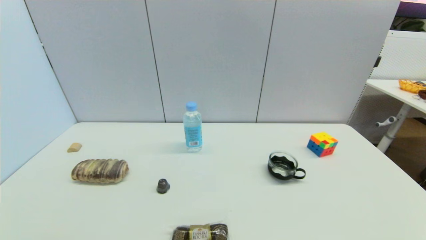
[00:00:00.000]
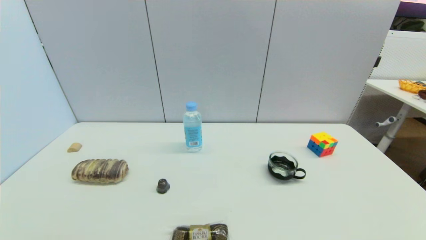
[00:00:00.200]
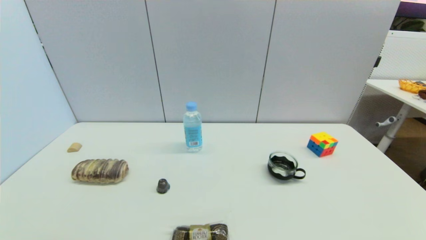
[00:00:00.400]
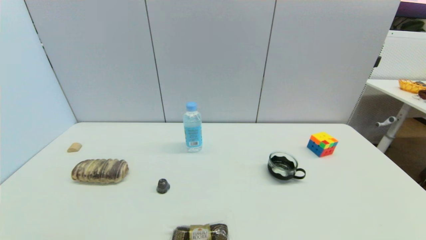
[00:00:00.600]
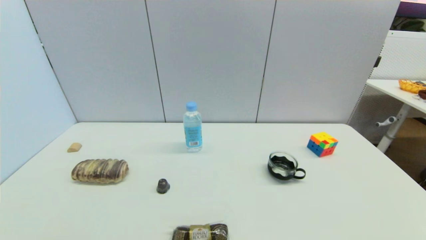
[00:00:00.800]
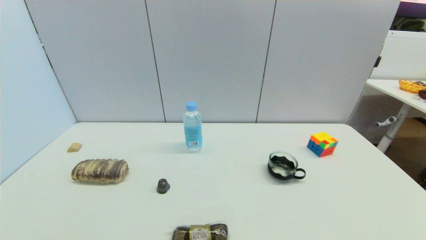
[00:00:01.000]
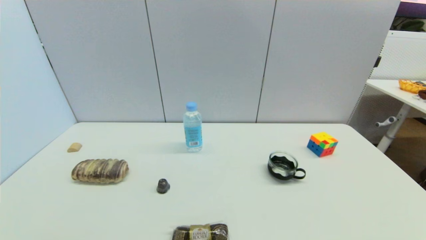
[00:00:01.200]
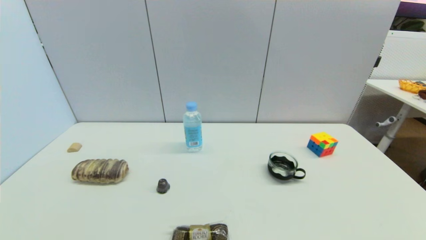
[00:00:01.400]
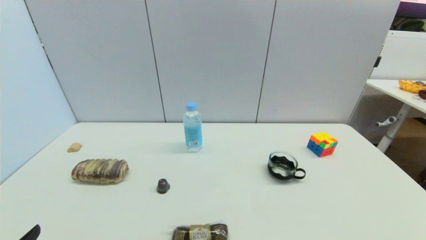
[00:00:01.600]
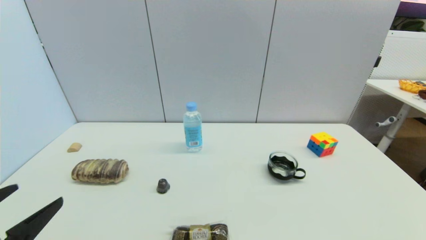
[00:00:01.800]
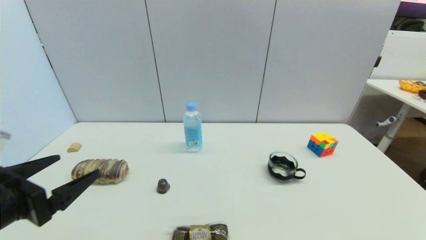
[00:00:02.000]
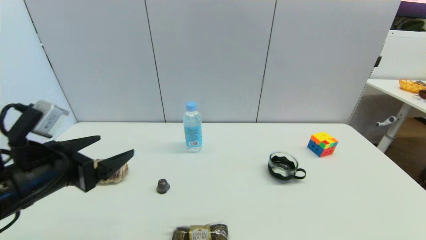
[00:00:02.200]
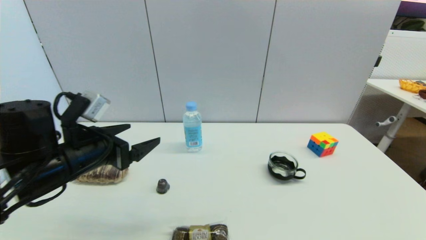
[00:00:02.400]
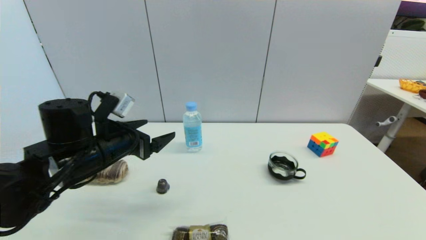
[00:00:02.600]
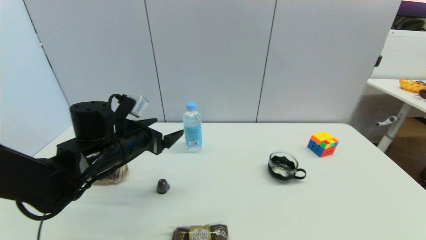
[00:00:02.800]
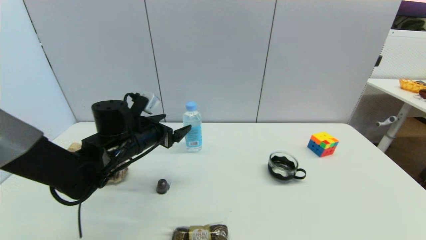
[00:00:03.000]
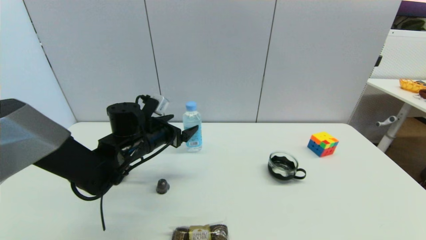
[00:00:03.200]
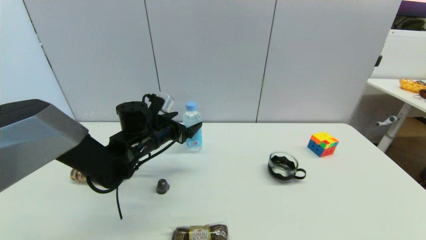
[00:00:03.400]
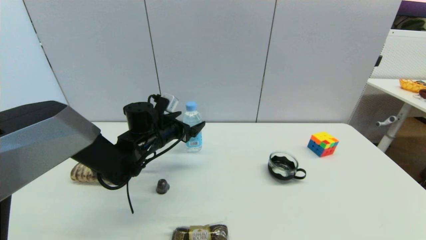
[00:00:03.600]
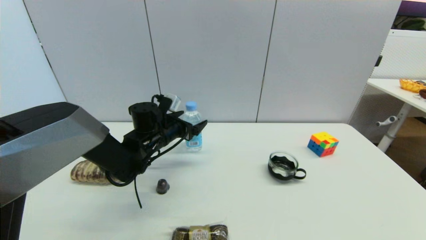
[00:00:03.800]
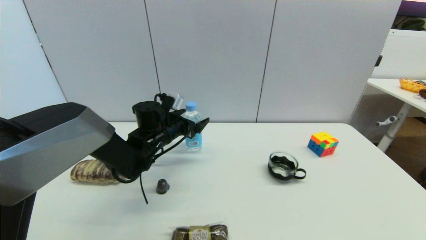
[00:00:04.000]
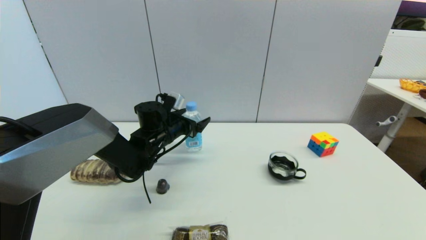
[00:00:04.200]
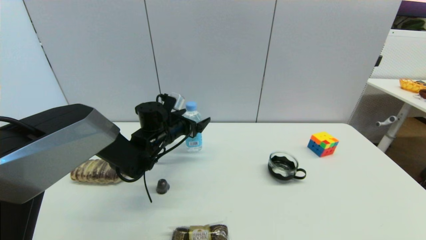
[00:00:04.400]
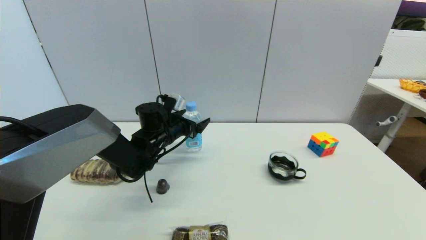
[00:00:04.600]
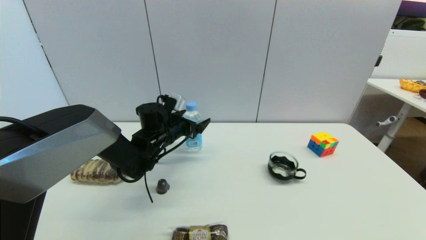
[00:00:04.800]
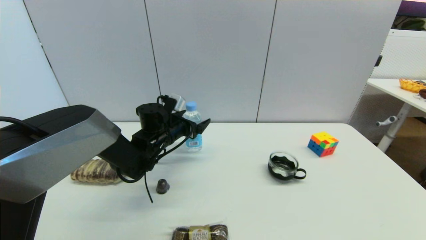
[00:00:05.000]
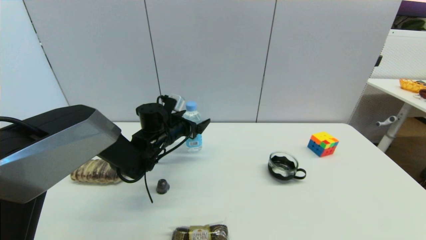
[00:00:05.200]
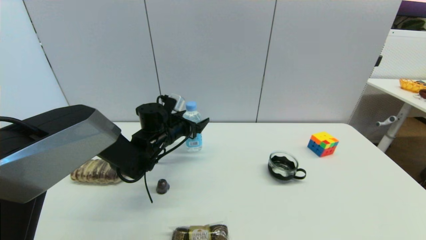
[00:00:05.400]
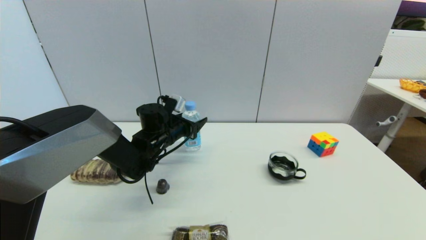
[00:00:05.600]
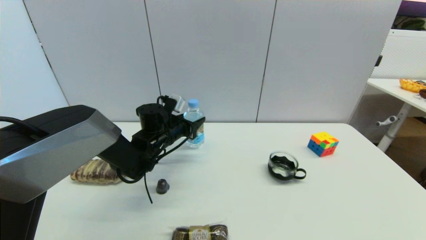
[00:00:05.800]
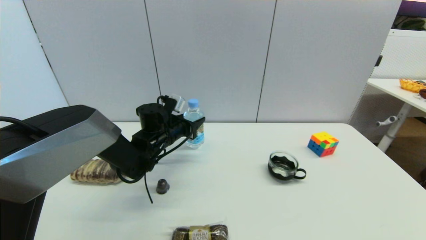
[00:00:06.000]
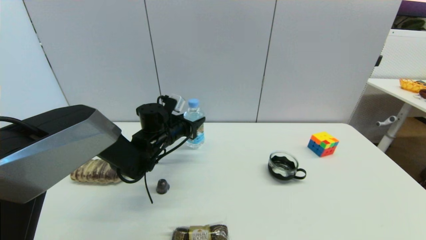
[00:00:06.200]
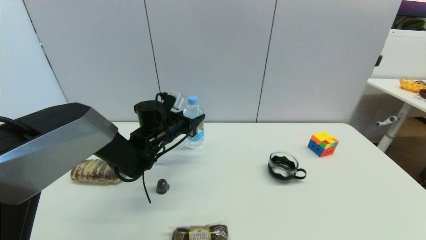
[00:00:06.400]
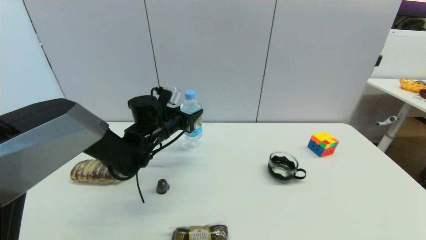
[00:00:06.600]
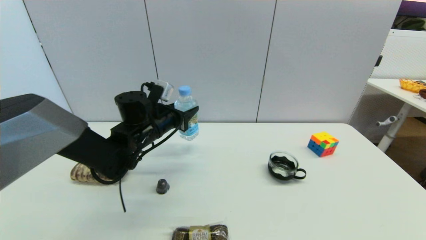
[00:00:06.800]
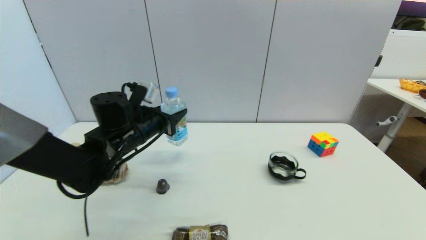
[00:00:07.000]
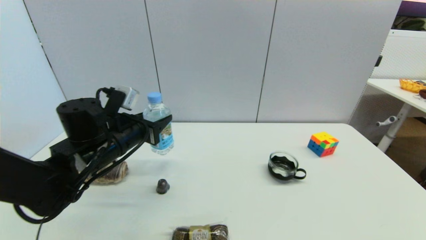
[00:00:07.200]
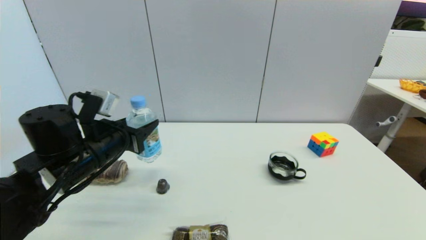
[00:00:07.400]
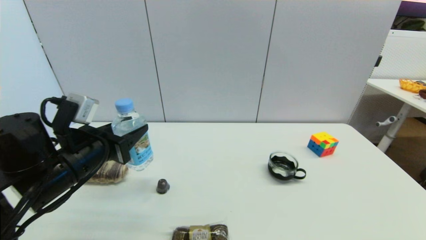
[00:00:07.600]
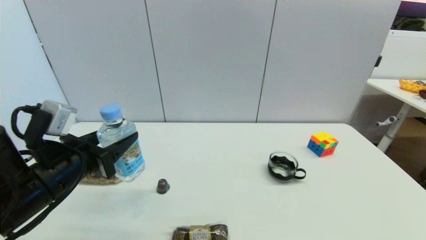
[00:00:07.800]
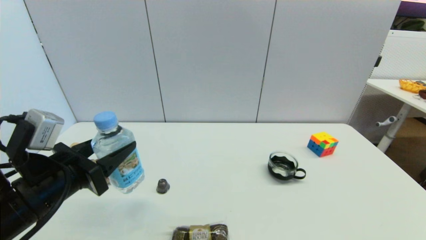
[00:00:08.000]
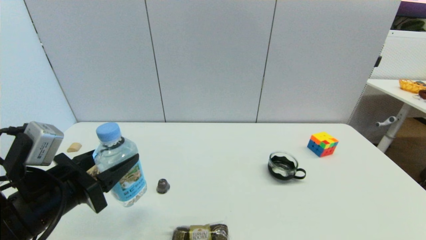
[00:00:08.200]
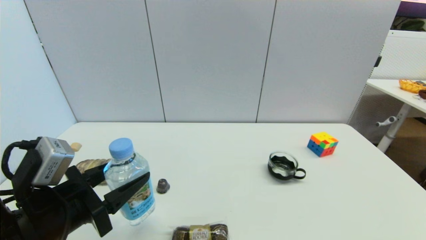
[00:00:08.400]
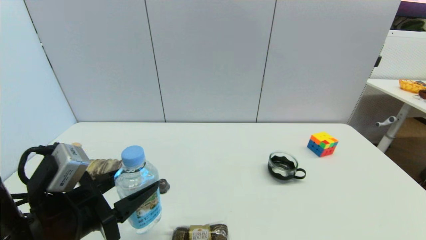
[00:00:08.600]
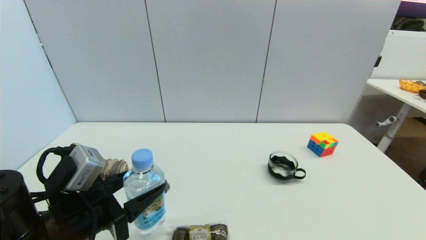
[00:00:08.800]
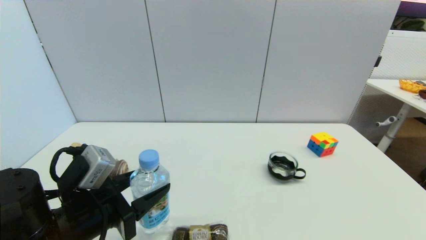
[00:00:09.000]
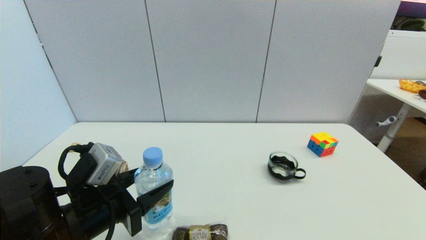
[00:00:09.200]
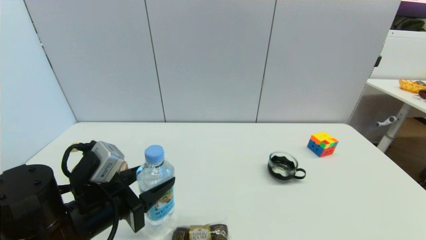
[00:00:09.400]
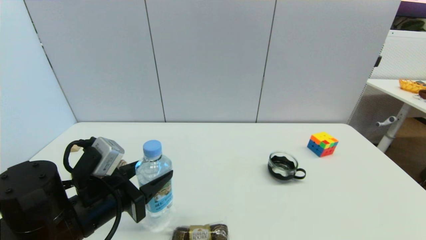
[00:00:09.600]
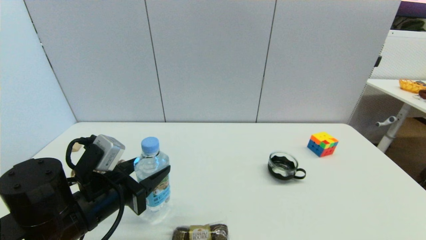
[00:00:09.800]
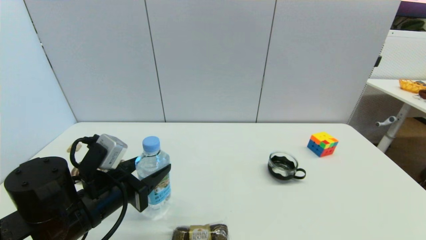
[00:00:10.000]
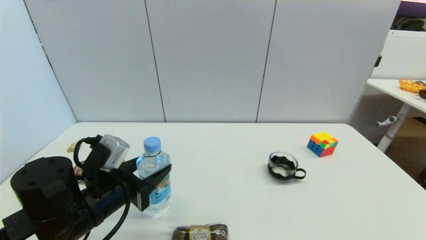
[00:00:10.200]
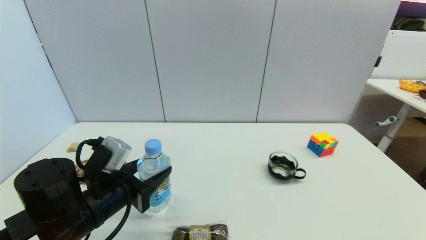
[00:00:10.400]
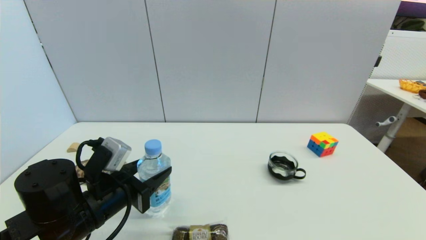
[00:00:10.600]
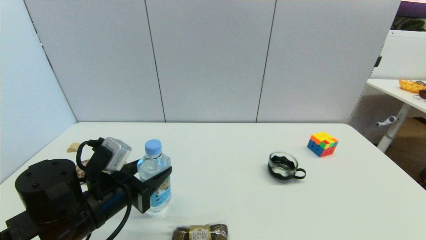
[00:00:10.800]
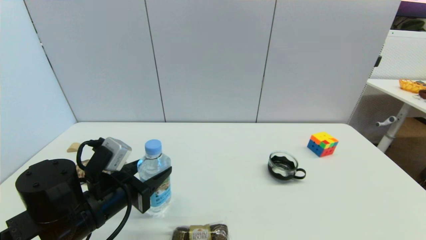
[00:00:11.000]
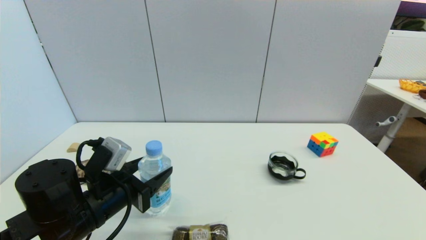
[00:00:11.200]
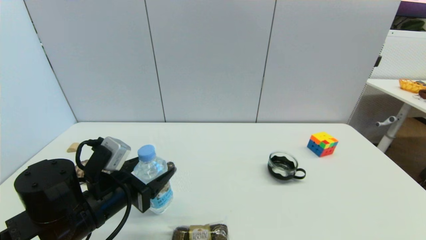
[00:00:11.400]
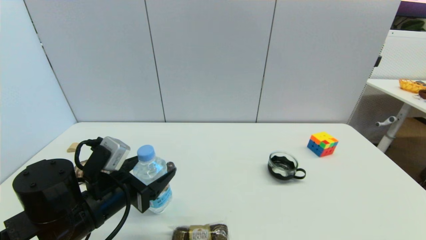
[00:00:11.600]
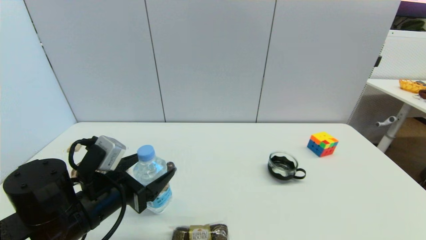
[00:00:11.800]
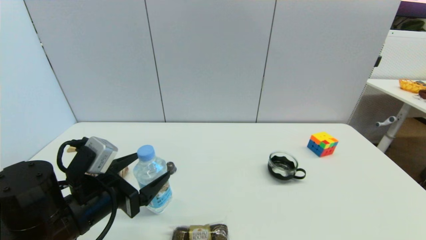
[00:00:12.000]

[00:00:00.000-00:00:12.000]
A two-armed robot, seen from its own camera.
Step, 00:00:01.600 to 00:00:05.600: Grasp the soda water with left gripper.
Step, 00:00:05.800 to 00:00:11.600: Place the soda water on the table with left gripper.
00:00:01.600 to 00:00:03.000: The left gripper heads forward and to the right, covering about 35 cm.
00:00:03.000 to 00:00:04.400: The left gripper heads forward, covering some 10 cm.
00:00:04.400 to 00:00:06.000: The left gripper closes.
00:00:06.000 to 00:00:07.600: The left gripper heads backward, to the left and upward, covering approximately 20 cm.
00:00:07.600 to 00:00:09.000: The left gripper heads backward, covering roughly 5 cm.
00:00:09.000 to 00:00:10.400: The grippers stay close to where they were, moving slightly.
00:00:10.400 to 00:00:12.000: The left gripper opens up.

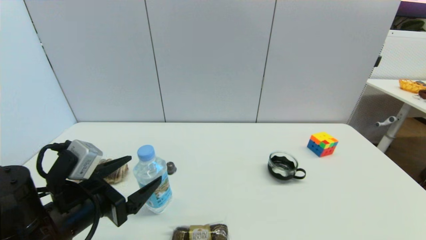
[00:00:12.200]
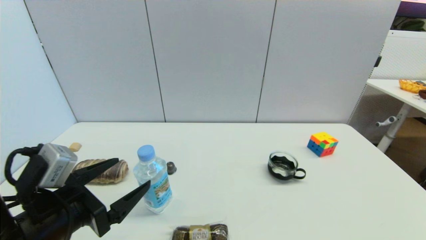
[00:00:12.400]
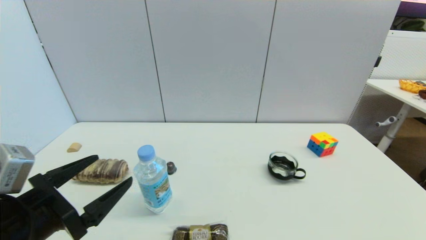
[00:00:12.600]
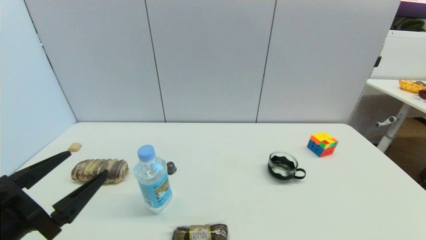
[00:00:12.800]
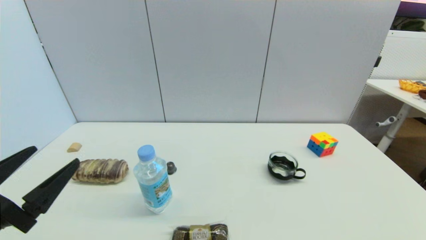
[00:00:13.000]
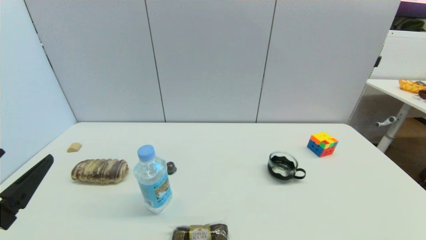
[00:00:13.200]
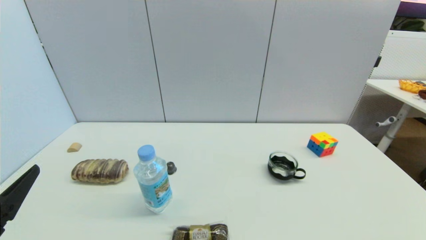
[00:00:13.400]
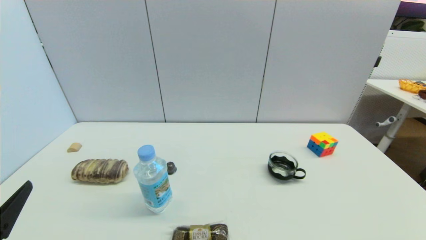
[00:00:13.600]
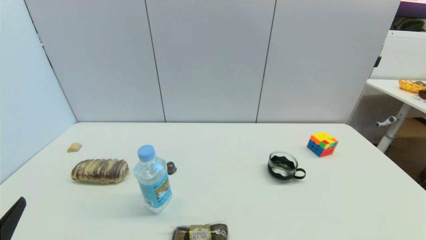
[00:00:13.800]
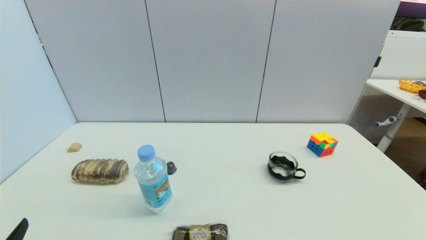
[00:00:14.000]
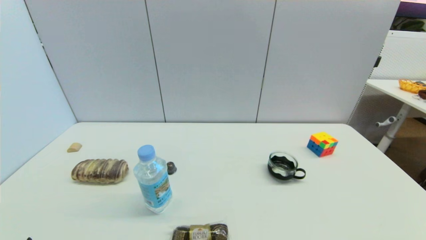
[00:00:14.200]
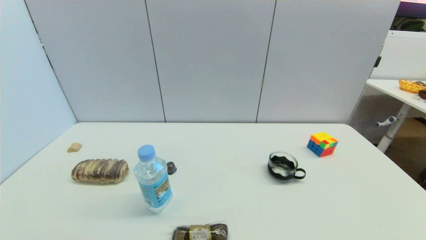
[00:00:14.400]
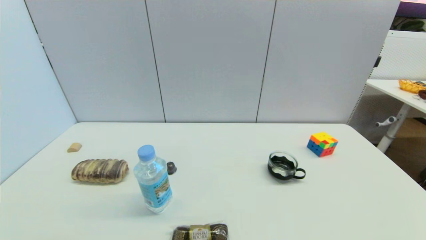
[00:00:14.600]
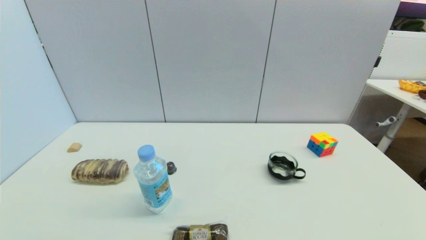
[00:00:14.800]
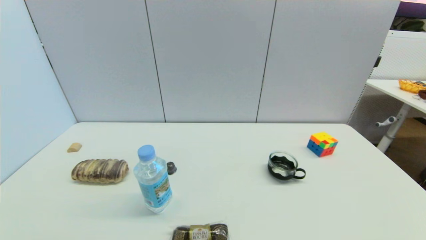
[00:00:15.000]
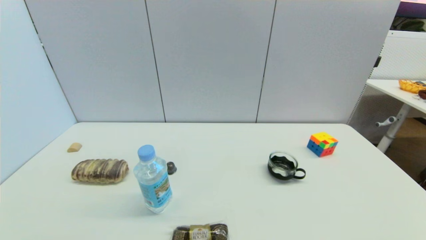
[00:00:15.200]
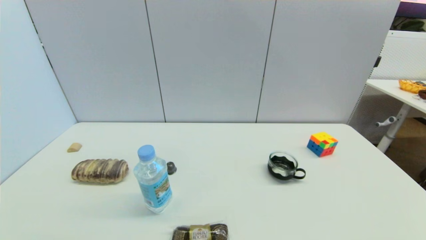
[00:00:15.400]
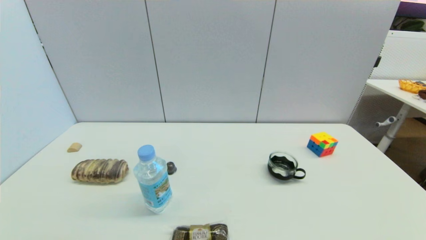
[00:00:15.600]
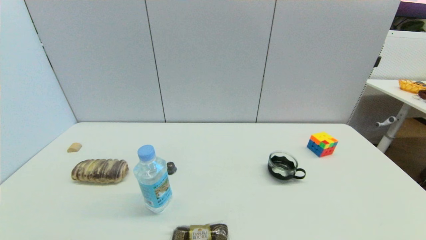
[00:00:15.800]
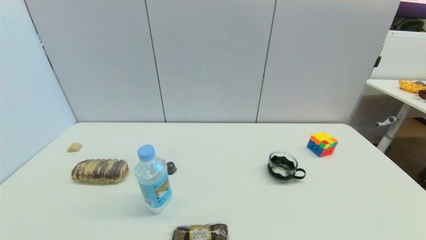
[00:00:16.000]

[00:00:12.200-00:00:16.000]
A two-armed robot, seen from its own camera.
00:00:12.200 to 00:00:13.400: The left gripper shifts approximately 15 cm backward and to the left.
00:00:13.400 to 00:00:14.800: The left gripper shifts roughly 10 cm downward and backward.
00:00:14.800 to 00:00:16.000: The two grippers keep their place.
